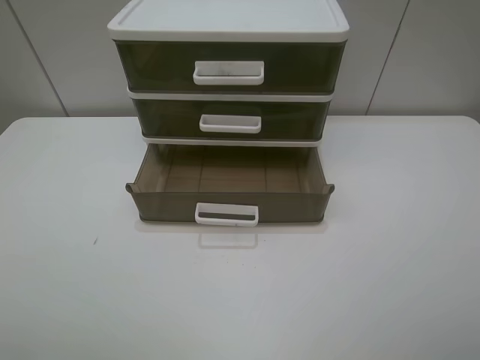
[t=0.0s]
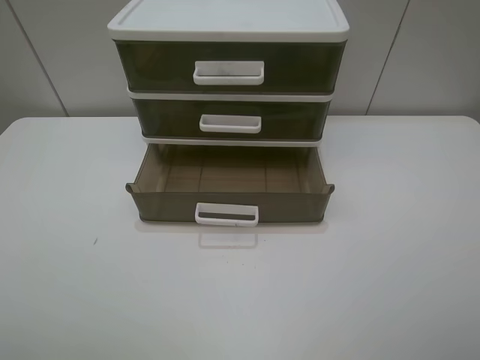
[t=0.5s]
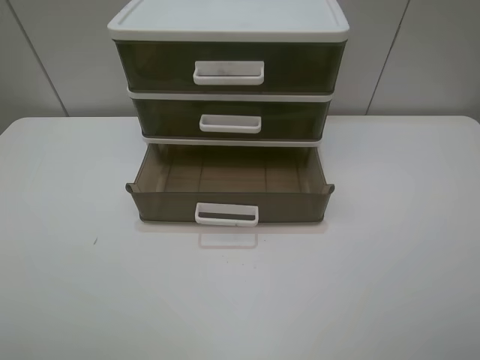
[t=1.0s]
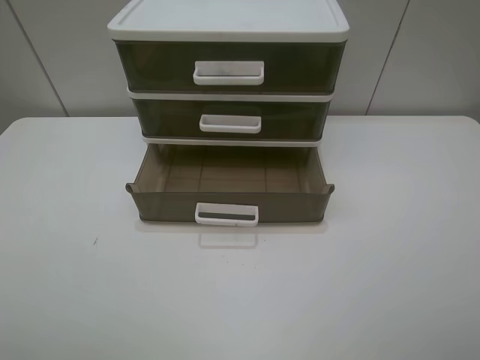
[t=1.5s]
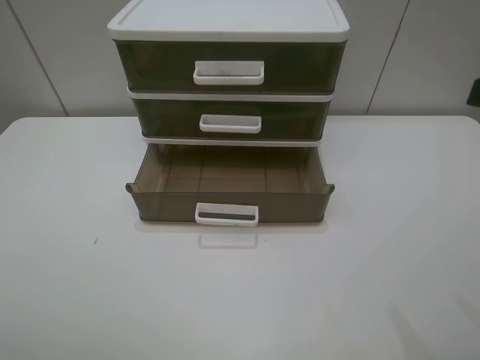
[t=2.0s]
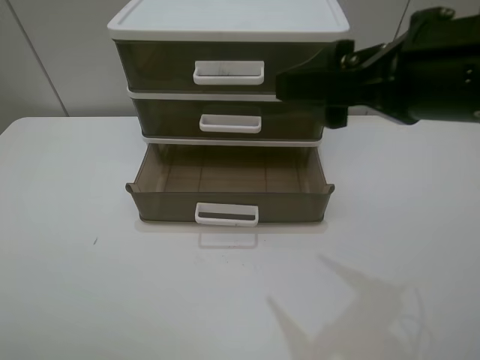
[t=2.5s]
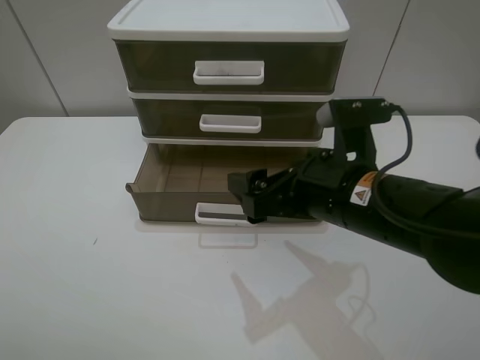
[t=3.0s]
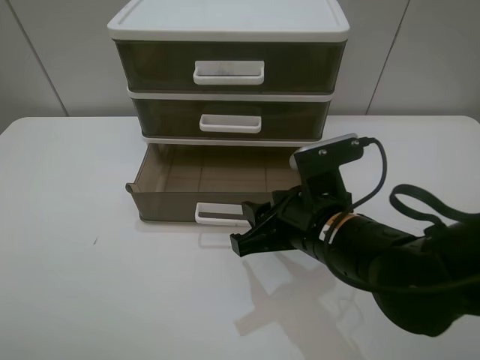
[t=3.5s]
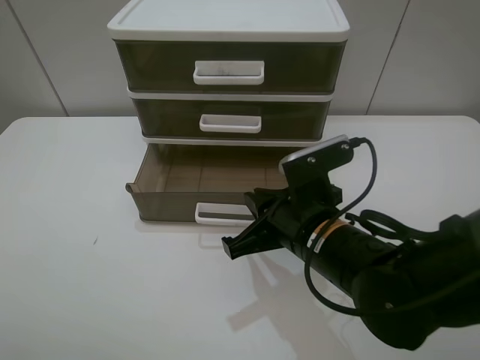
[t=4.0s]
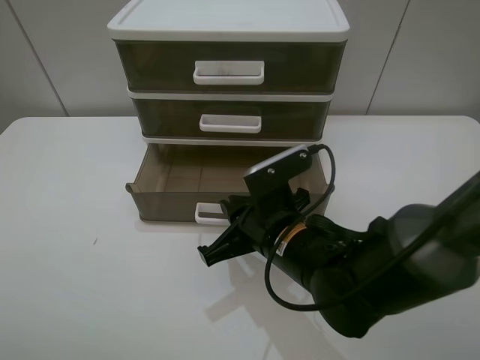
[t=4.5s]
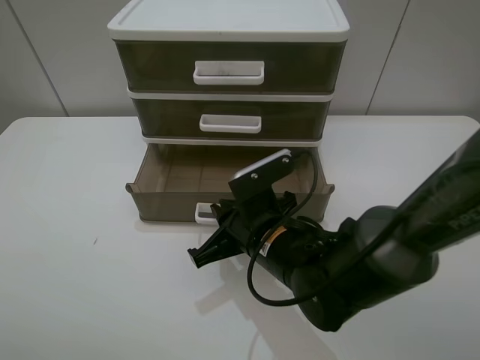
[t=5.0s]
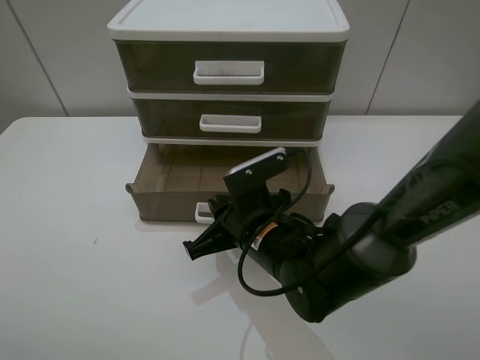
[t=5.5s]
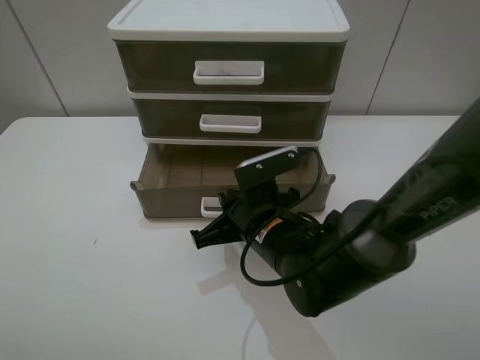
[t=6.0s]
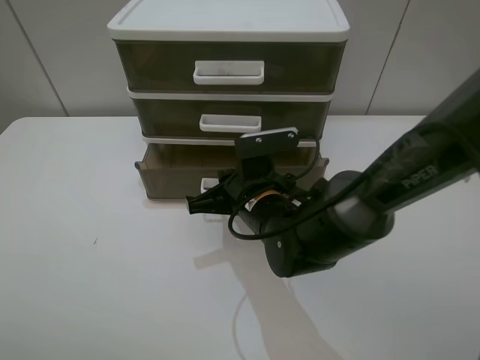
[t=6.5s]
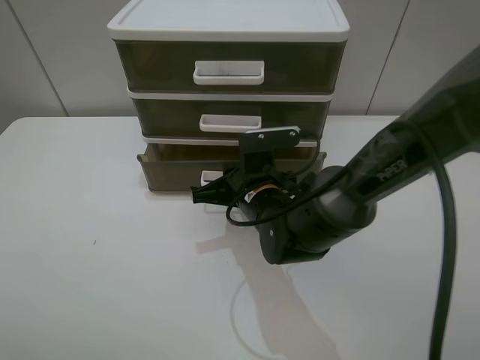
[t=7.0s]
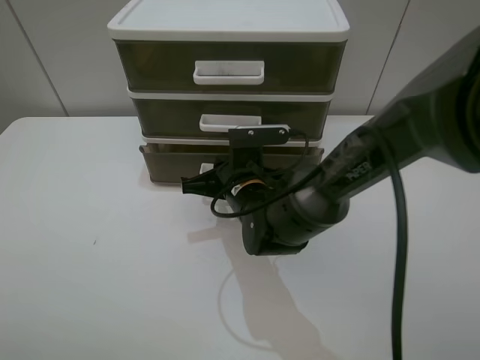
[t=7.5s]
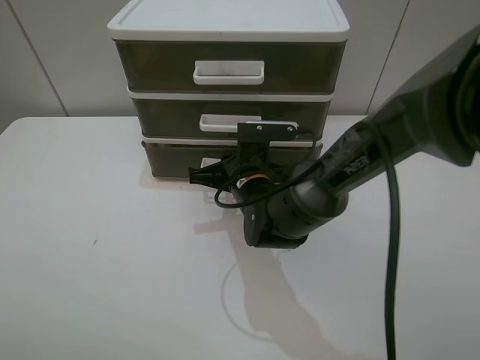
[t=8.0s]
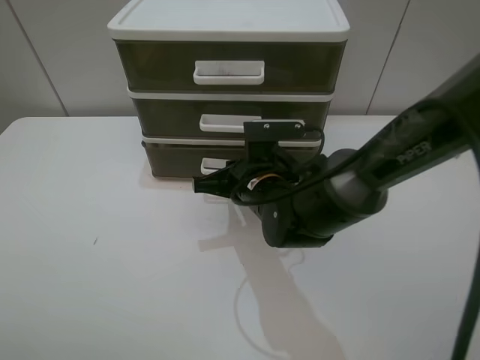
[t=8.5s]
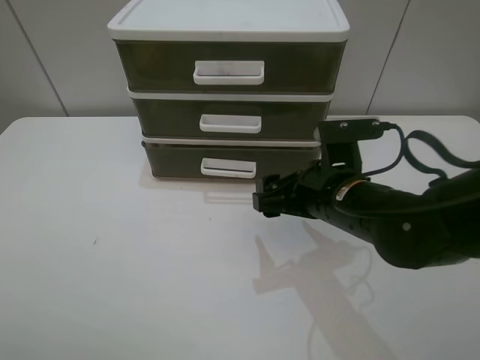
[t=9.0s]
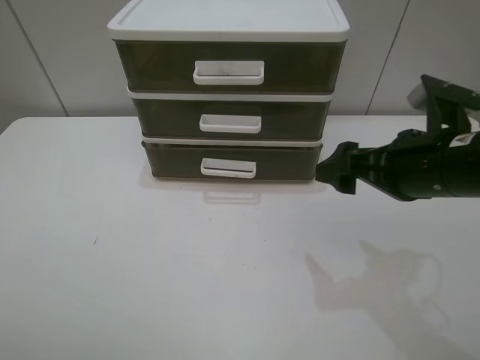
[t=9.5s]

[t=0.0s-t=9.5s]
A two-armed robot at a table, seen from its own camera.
Task of the whole recording: close the bottom drawer.
Step, t=0.0s to t=5.5s: Use the right gripper to contact the bottom layer of the storage cabinet.
Step, t=6.0s to t=8.0s: Push the bottom drawer closed.
t=2.0s to t=4.0s: The right gripper moves downward and to the left, some 30 cm, and closes its fingers.
t=4.0s to t=5.5s: The right gripper moves roughly 5 cm.
t=5.5s to t=7.5s: The right gripper goes roughly 5 cm forward.
t=7.5s to t=9.5s: The right gripper goes about 25 cm to the right, upward and backward, and opens up.

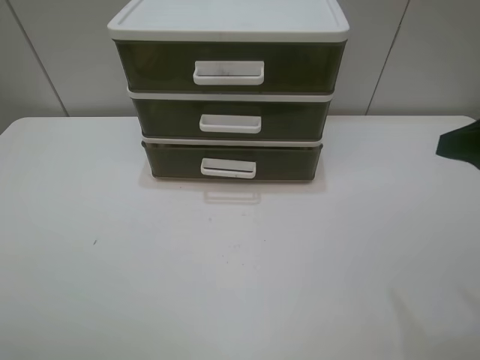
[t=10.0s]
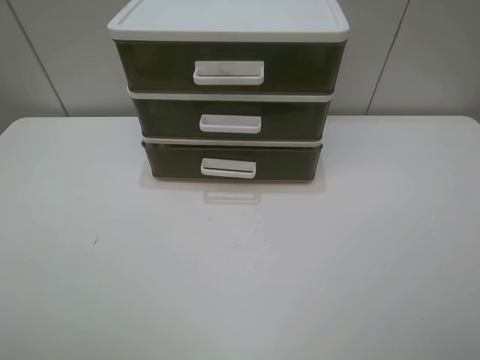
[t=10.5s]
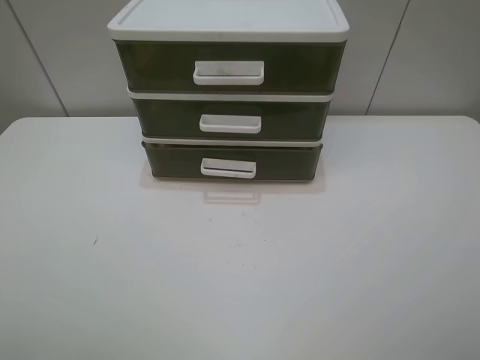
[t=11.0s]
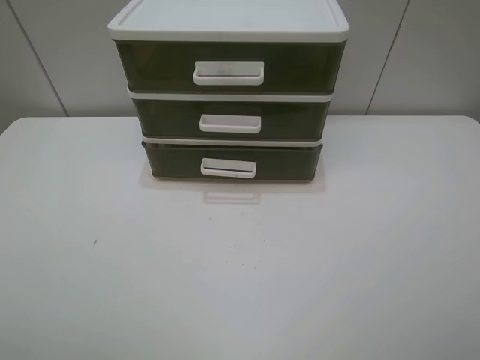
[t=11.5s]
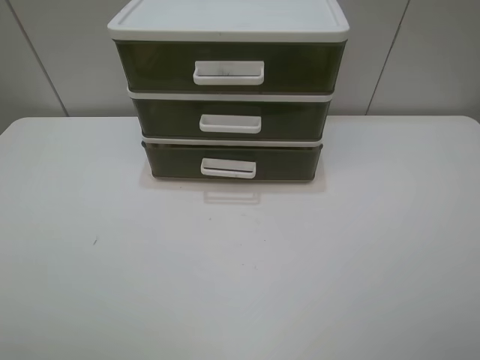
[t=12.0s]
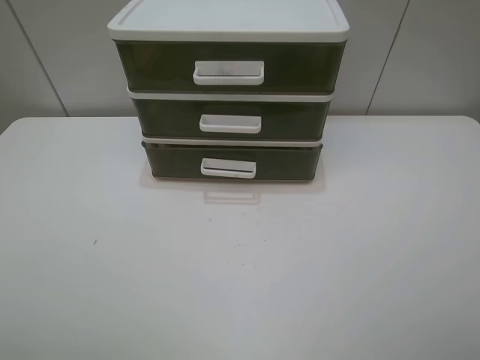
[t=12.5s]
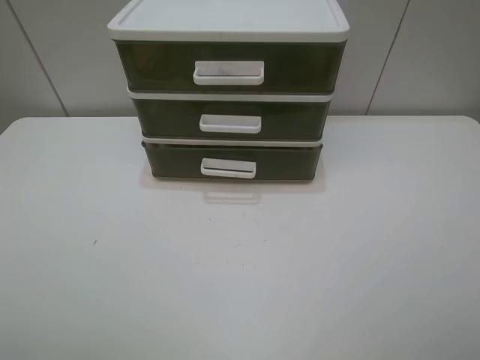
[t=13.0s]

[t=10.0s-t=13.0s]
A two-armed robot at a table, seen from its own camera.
Task of the whole recording: close the bottom drawer.
t=10.0s to t=11.5s: The right gripper travels backward by approximately 10 cm.
